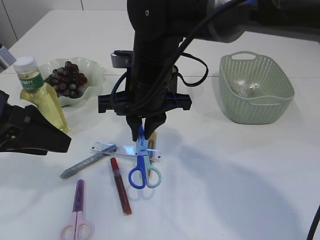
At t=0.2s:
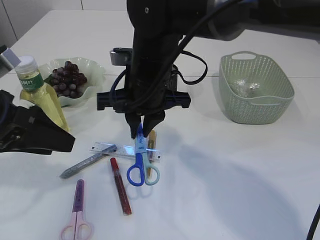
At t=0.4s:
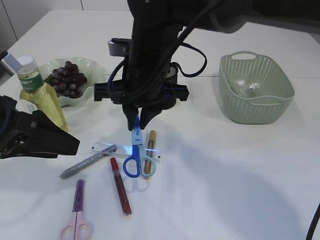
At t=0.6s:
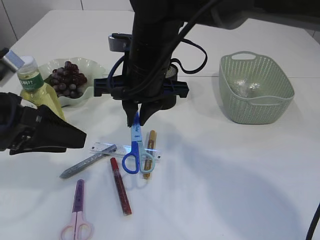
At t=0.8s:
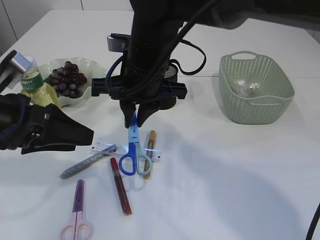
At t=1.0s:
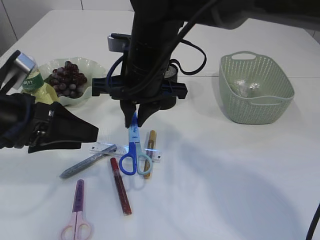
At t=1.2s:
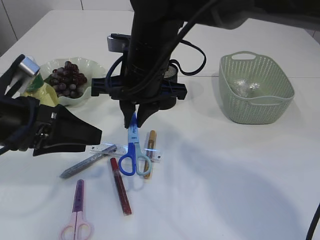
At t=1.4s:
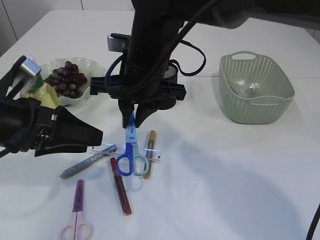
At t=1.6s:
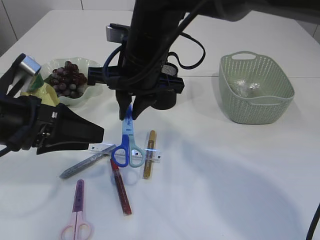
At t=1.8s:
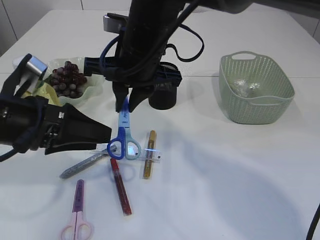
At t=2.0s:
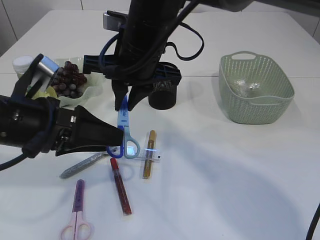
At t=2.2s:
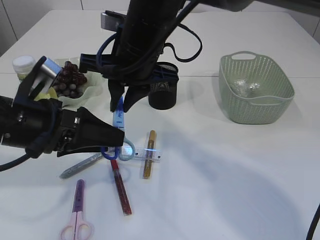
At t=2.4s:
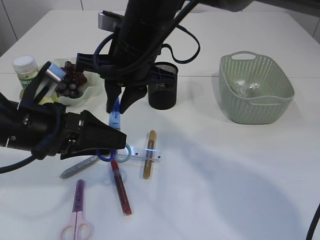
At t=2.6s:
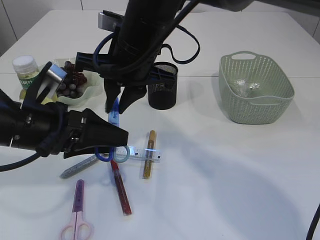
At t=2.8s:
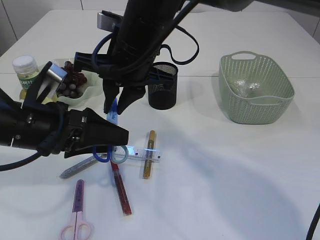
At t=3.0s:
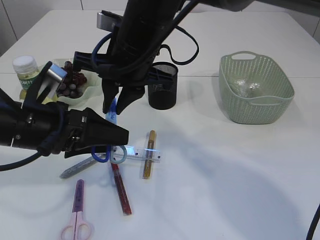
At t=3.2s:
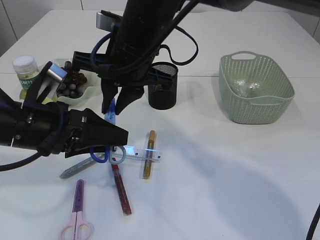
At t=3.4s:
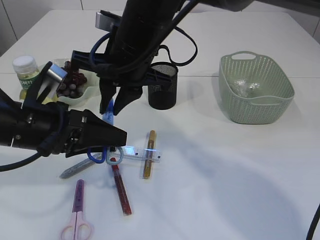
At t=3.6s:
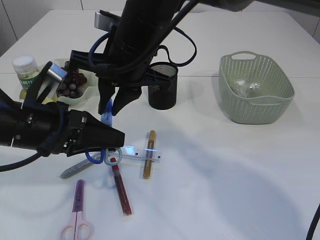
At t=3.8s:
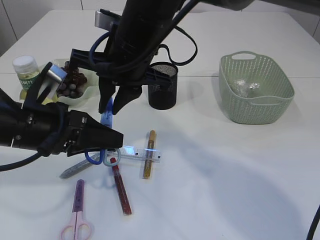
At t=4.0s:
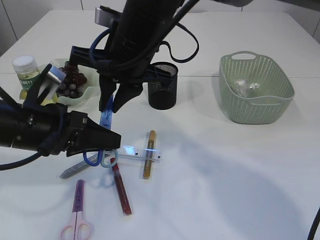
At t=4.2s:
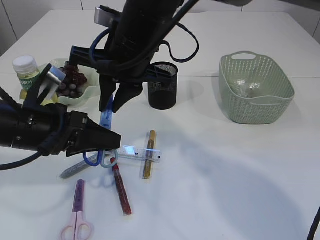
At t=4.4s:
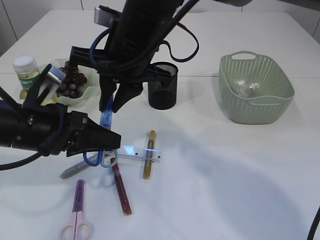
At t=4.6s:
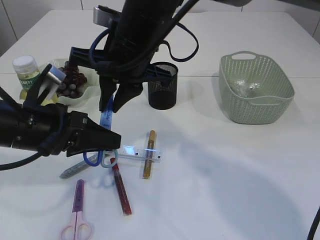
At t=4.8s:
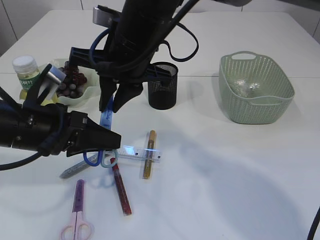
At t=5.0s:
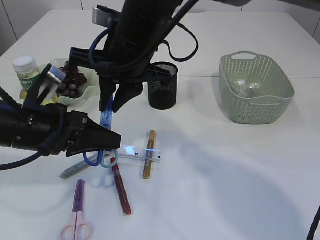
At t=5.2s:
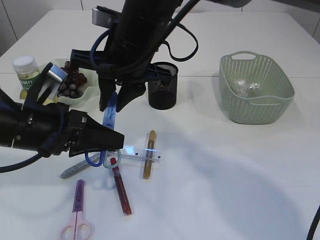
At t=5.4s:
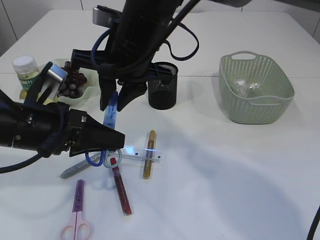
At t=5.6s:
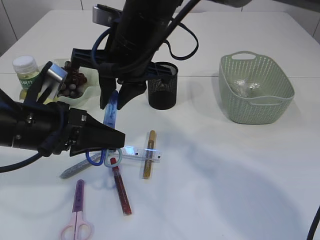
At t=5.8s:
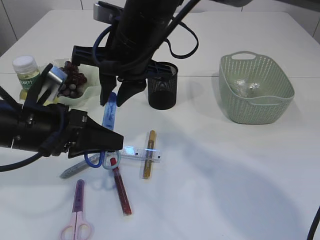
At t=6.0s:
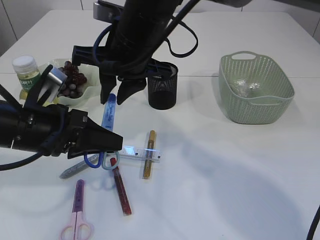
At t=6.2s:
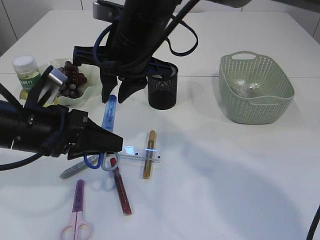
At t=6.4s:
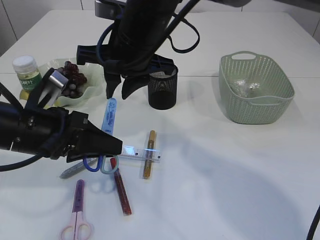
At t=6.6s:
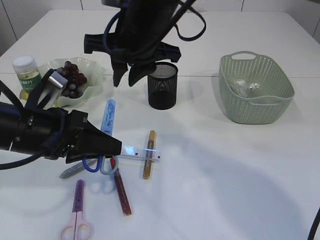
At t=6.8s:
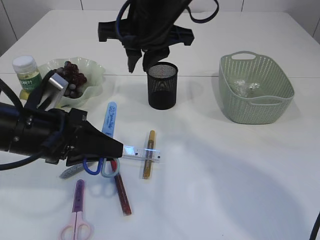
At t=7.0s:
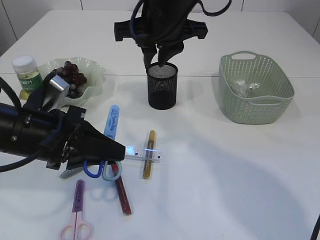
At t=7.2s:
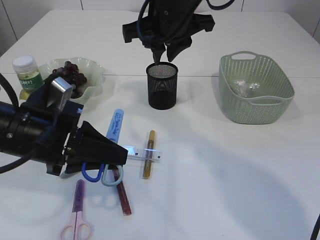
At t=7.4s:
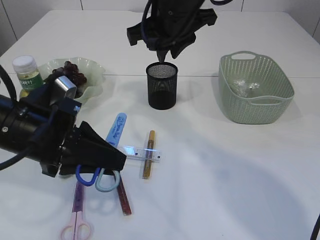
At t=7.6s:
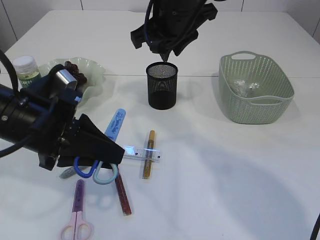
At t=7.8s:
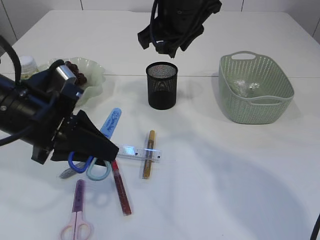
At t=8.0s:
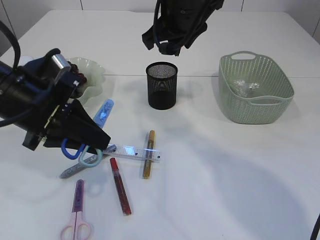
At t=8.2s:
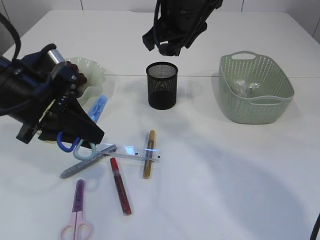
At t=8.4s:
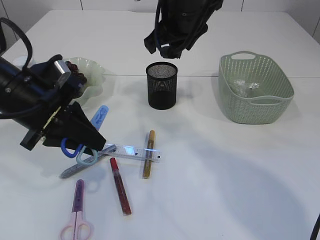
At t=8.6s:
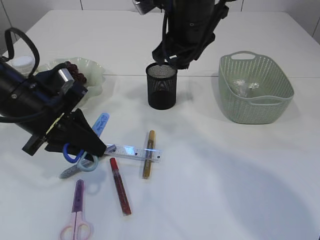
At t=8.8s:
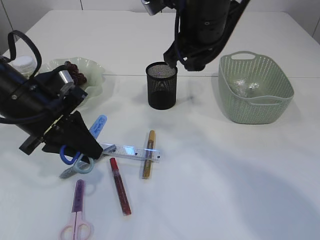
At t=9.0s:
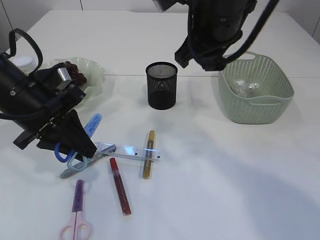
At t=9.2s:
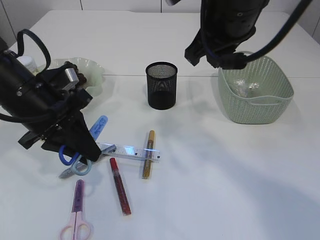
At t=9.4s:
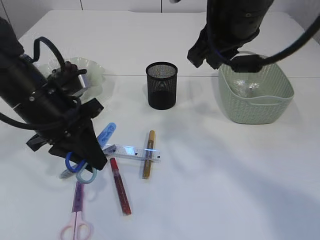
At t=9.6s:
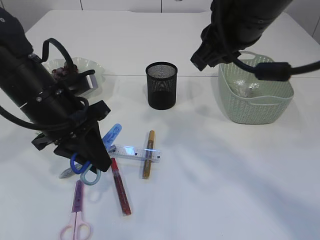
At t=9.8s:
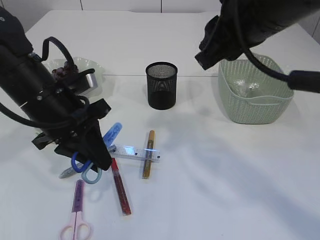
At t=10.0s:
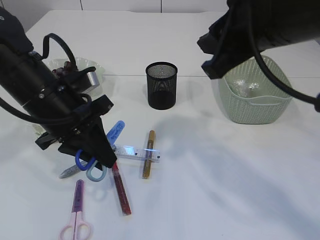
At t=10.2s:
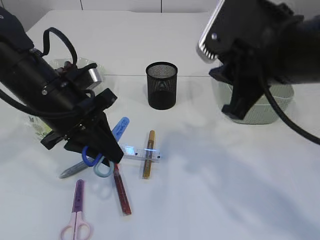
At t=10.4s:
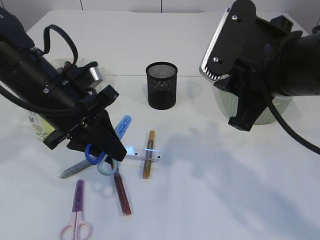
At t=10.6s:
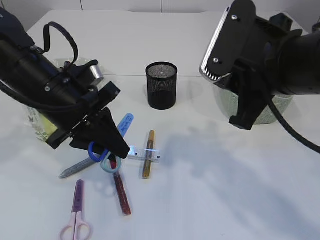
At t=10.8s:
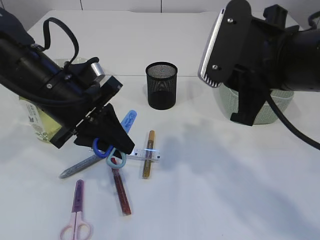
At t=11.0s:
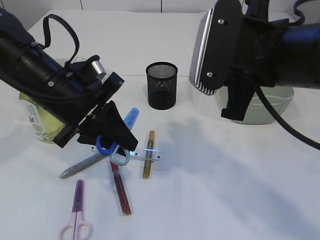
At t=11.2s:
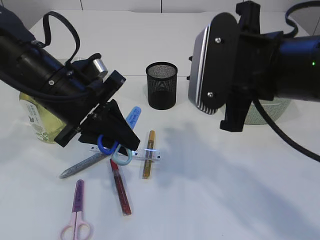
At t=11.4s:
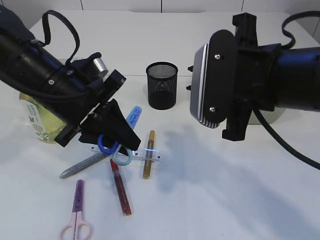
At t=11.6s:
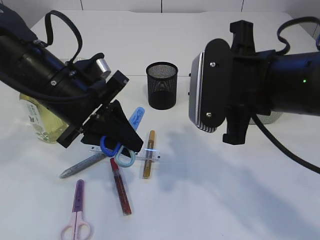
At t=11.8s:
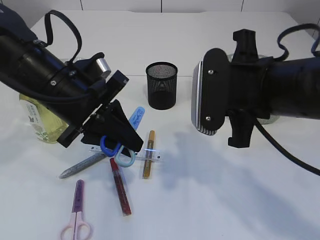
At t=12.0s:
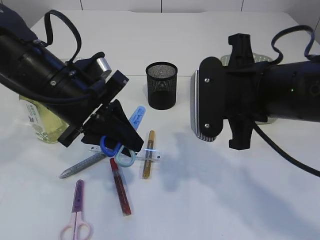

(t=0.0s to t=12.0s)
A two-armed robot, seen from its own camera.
t=0.0s - t=1.6s: The grippers stay close to where they were, moving slightly.
t=1.6s - t=3.0s: There are only small adjustments of the grippers.
t=3.0s - t=4.4s: The left gripper closes.
t=4.4s - t=6.0s: The grippers stay close to where they were, moving slightly.
t=6.0s - t=7.6s: The right gripper is displaced to the right by approximately 5 cm.
t=7.6s - t=9.0s: The left gripper shifts some 5 cm forward, while the right gripper moves some 5 cm.
t=9.0s - t=10.4s: The right gripper shifts roughly 10 cm backward and to the right.

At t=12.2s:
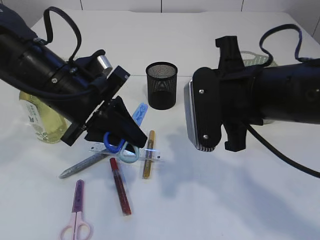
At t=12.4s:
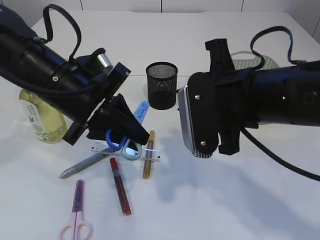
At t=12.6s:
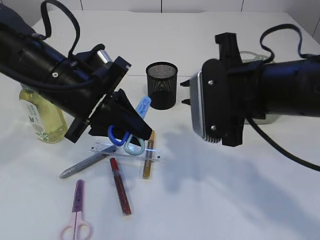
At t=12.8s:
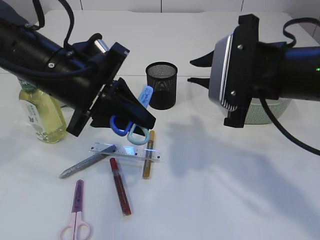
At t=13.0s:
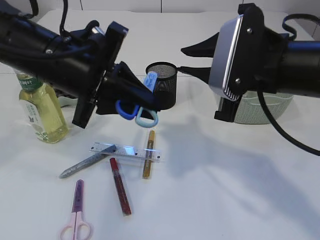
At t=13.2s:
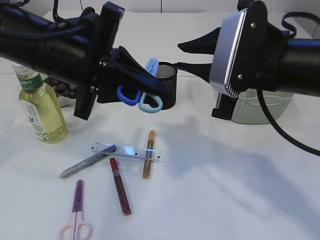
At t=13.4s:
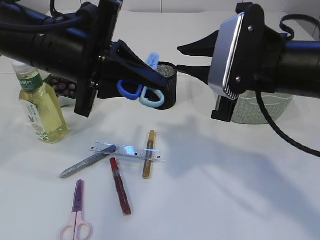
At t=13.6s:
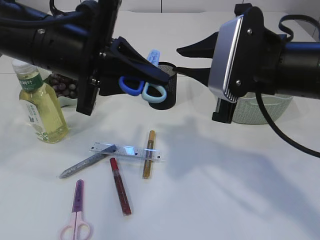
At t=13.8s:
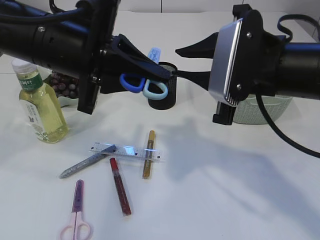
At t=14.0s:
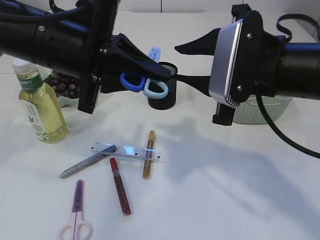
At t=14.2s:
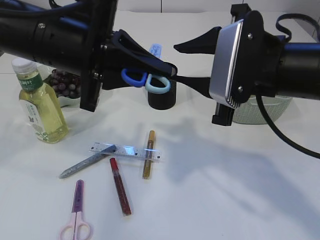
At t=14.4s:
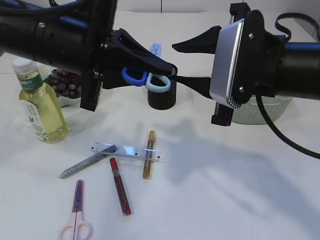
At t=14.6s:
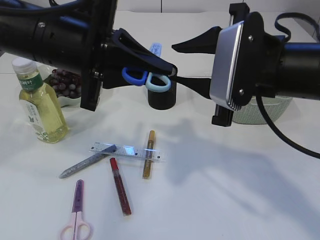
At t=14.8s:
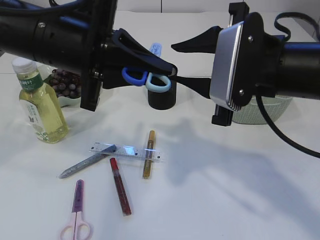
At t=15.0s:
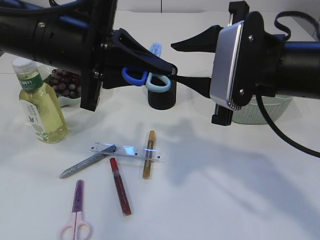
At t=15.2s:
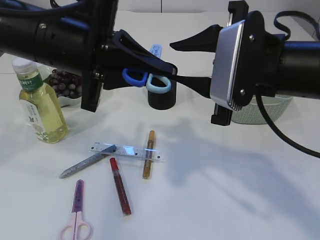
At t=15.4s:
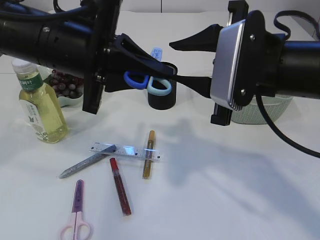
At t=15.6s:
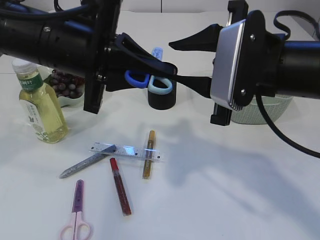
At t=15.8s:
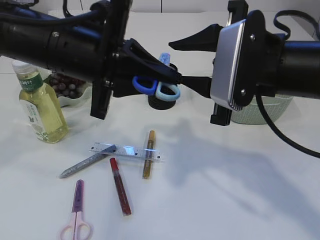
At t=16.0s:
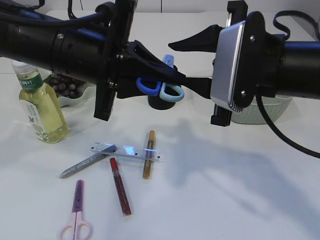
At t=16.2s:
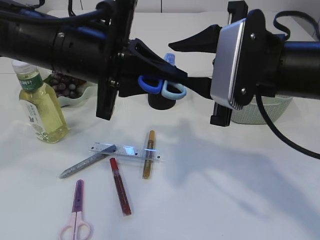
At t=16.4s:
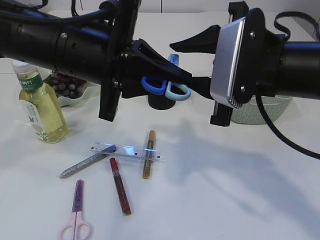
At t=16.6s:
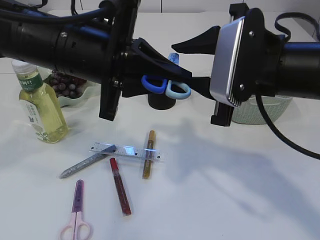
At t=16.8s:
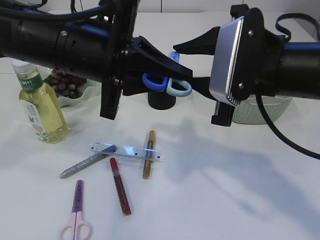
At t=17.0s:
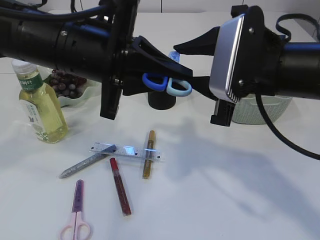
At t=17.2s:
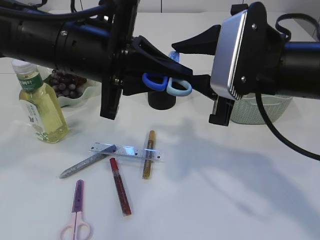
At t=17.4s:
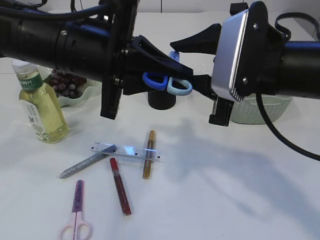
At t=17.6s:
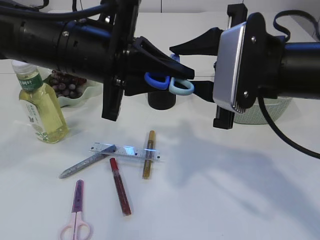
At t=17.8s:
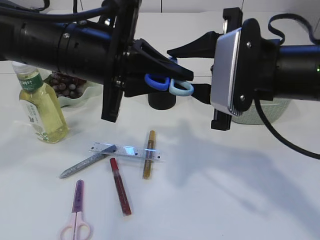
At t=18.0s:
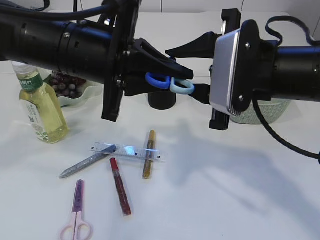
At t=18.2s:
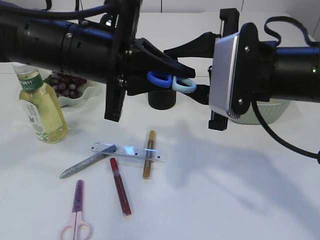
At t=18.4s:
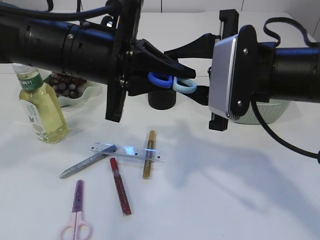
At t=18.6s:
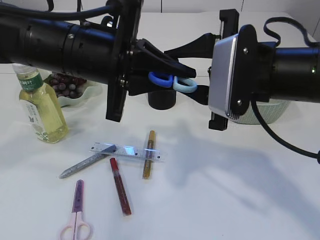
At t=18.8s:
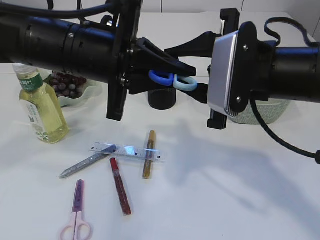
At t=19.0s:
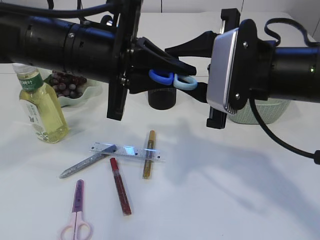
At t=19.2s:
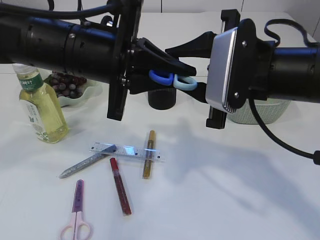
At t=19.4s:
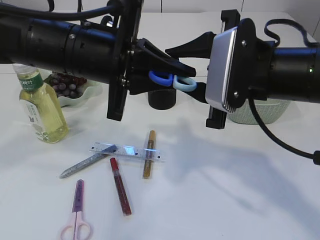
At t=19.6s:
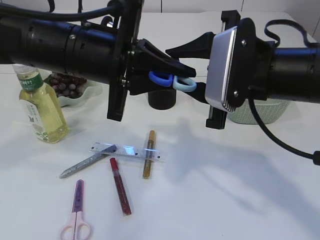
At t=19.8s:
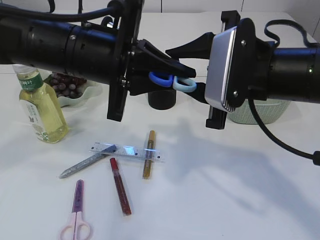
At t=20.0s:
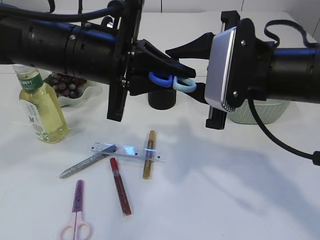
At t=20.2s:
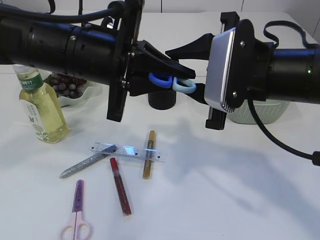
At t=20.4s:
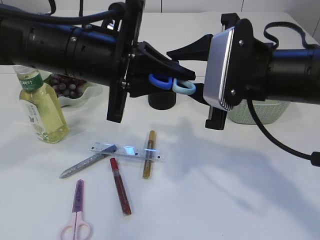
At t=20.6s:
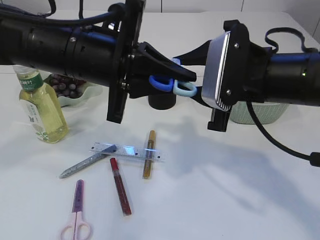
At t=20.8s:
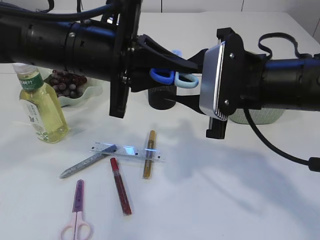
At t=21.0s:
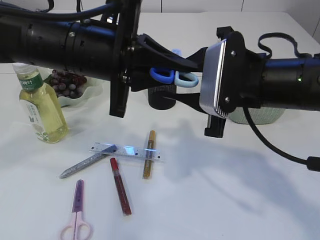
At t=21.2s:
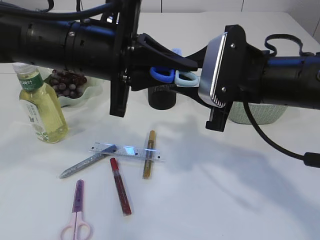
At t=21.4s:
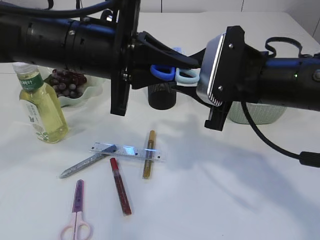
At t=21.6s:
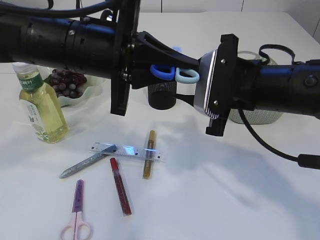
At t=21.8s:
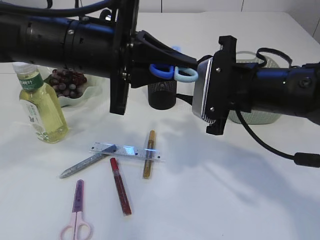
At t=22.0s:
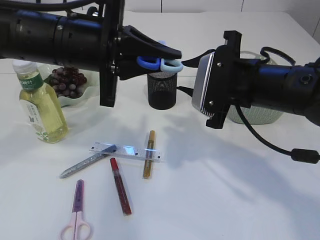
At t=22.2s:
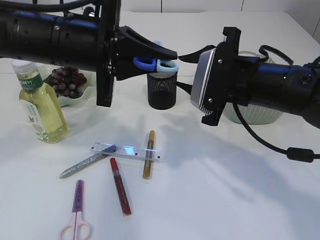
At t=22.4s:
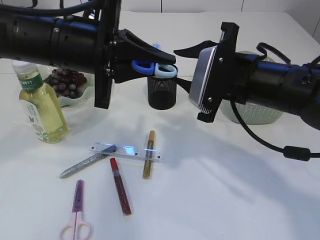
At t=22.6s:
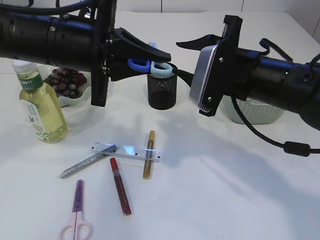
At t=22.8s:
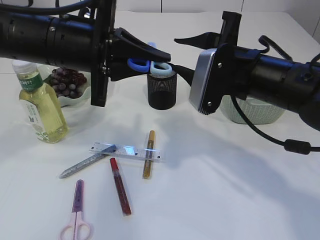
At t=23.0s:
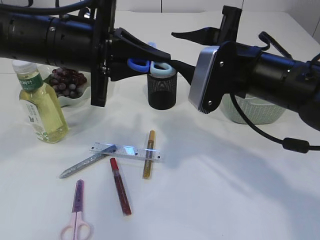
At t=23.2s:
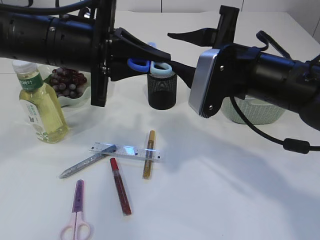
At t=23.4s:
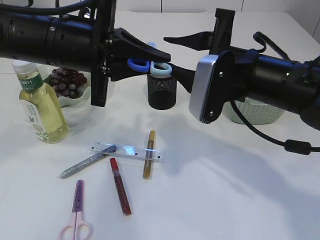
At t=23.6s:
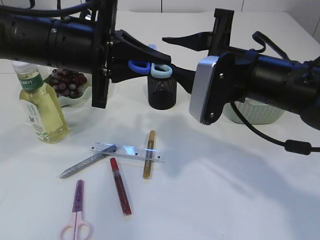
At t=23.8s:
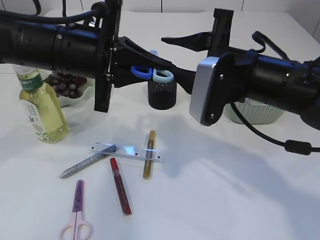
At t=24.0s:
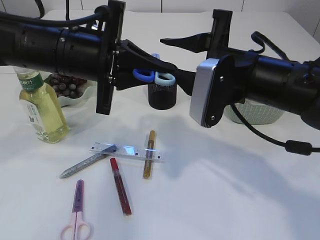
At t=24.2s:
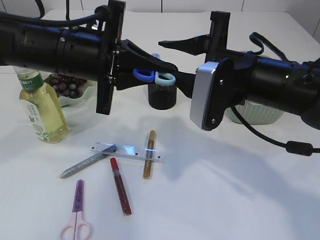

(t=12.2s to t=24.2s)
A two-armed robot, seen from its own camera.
t=12.2s - t=13.8s: The left gripper travels upward by about 5 cm.
t=13.8s - t=15.2s: The two grippers keep their place.
t=15.2s - t=21.2s: The grippers stay close to where they were, moving slightly.
t=21.2s - t=22.6s: There are only small adjustments of the grippers.
t=22.6s - t=24.2s: The grippers move only a little.
